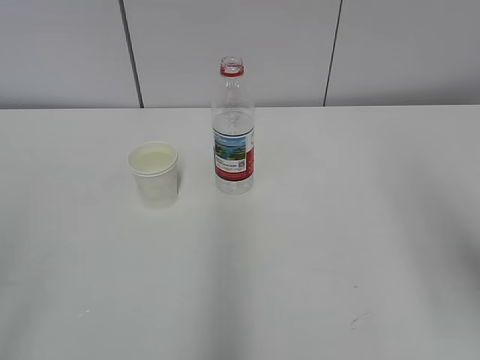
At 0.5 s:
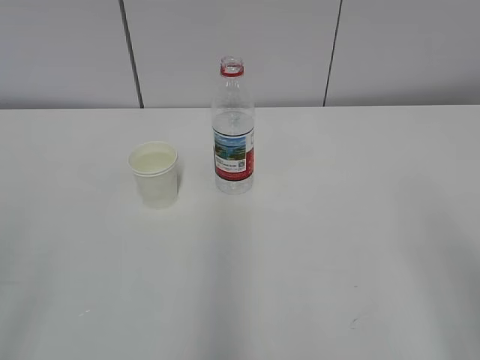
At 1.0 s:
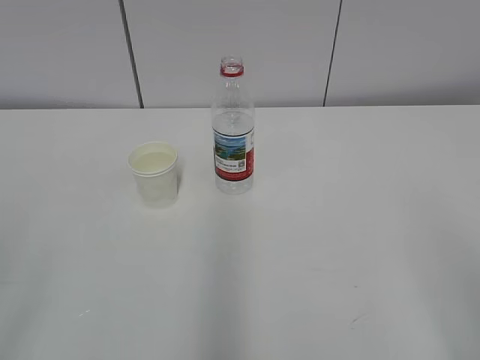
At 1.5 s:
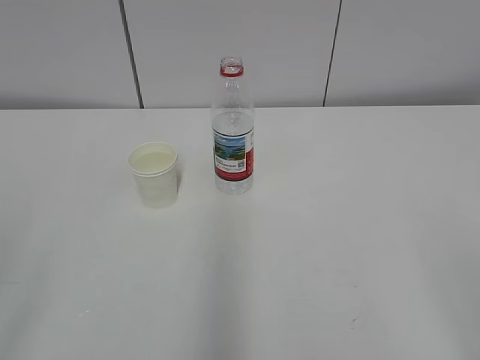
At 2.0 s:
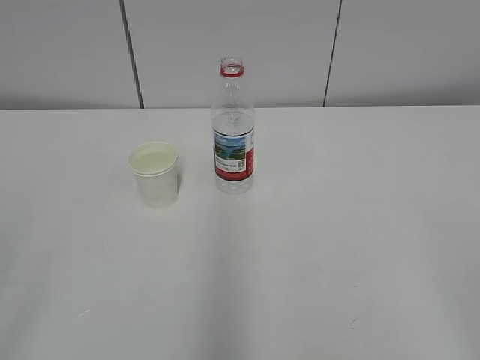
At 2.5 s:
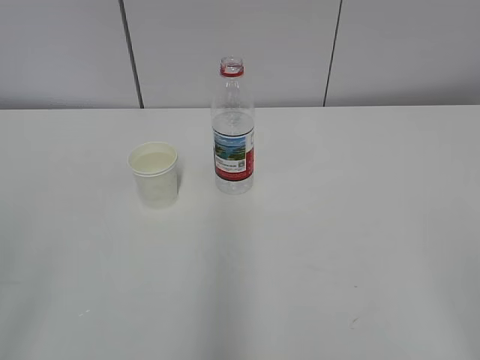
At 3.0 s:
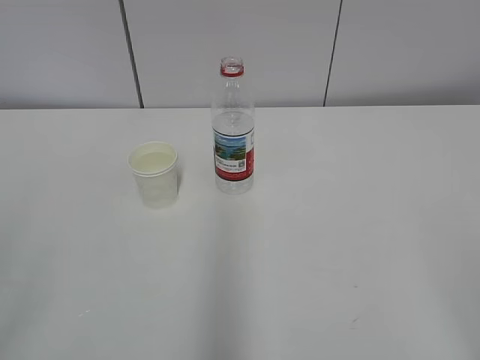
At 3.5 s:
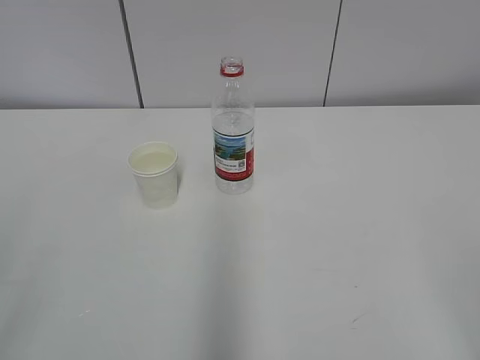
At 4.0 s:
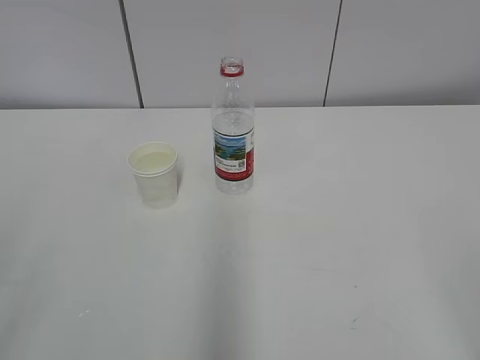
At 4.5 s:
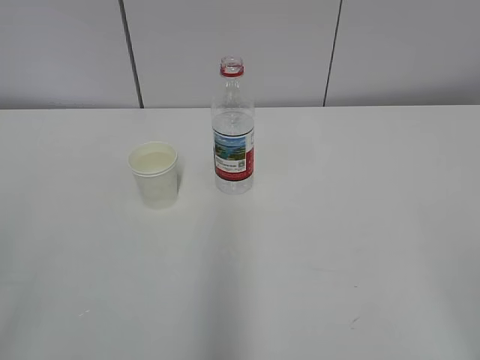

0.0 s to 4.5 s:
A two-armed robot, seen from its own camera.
0.0 to 2.0 s: The right gripper travels backward by some 15 cm.
2.0 to 4.5 s: Neither gripper changes place.
